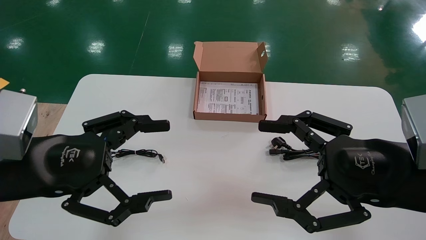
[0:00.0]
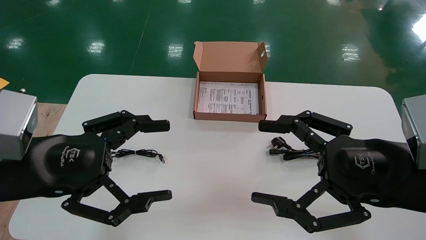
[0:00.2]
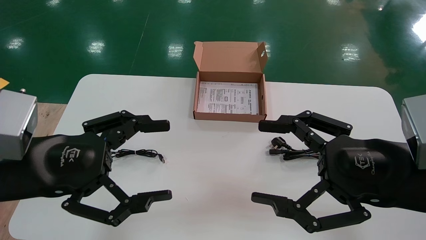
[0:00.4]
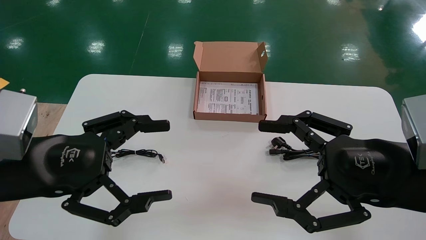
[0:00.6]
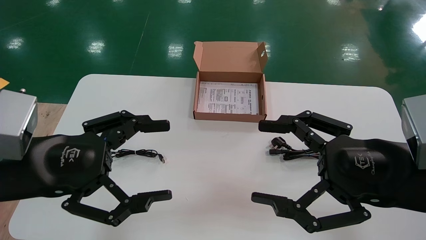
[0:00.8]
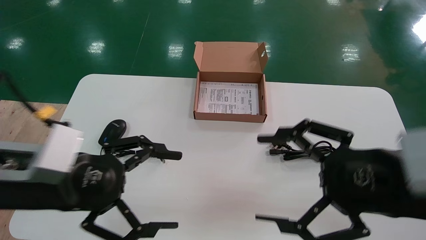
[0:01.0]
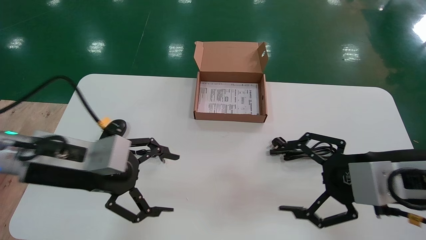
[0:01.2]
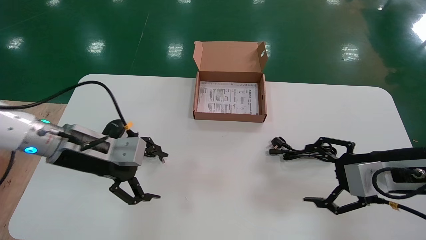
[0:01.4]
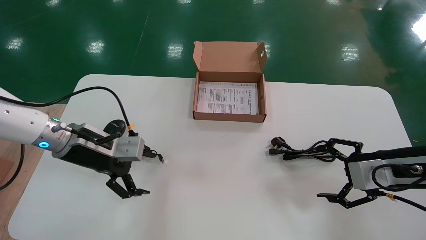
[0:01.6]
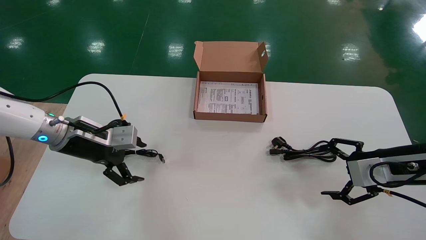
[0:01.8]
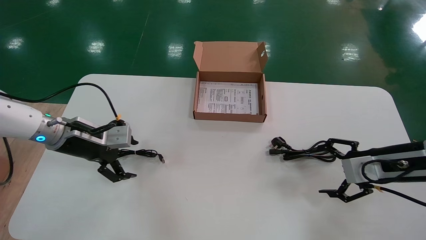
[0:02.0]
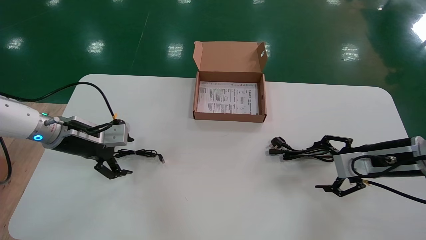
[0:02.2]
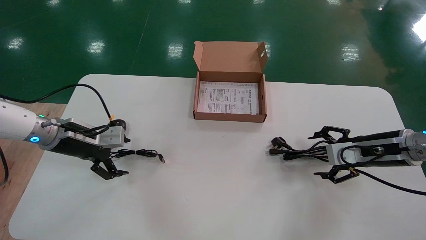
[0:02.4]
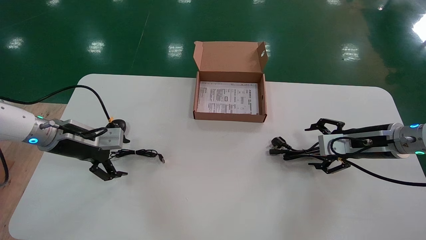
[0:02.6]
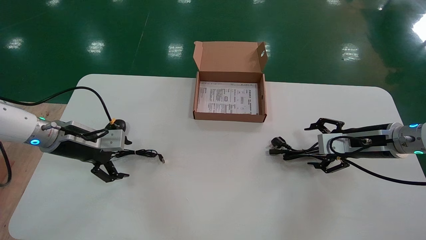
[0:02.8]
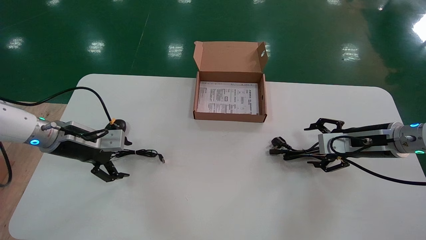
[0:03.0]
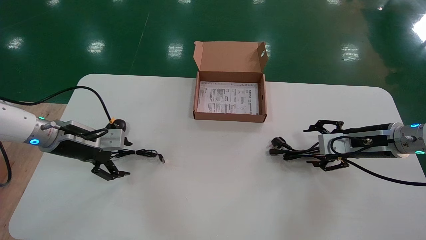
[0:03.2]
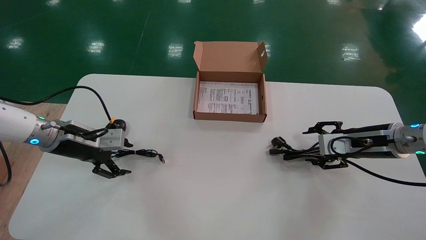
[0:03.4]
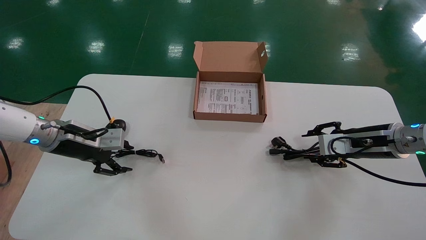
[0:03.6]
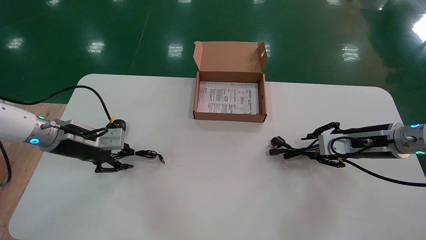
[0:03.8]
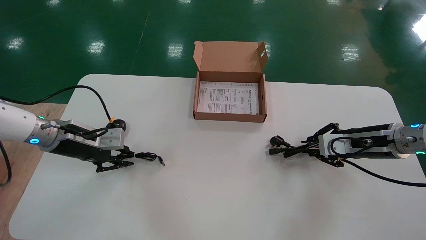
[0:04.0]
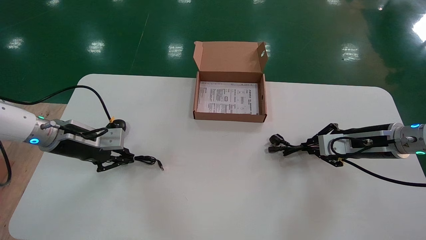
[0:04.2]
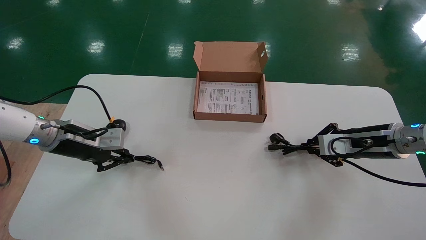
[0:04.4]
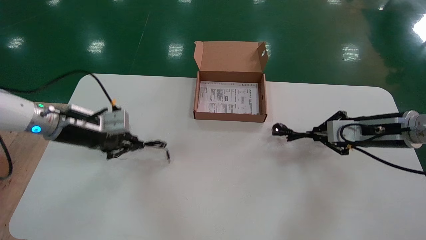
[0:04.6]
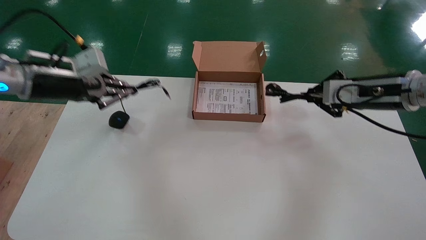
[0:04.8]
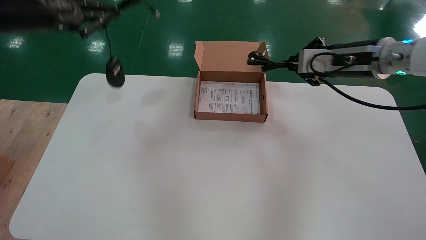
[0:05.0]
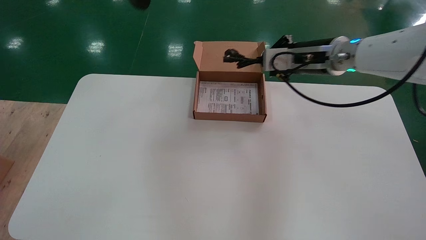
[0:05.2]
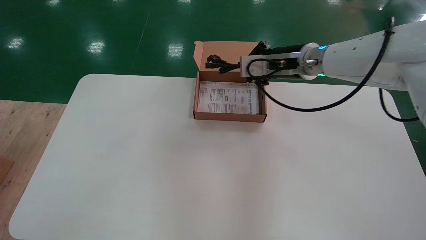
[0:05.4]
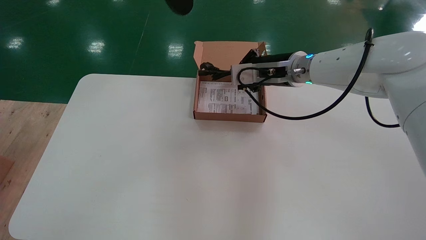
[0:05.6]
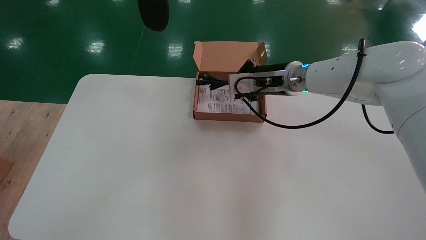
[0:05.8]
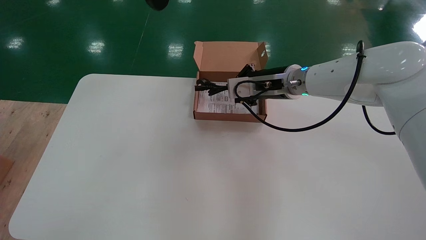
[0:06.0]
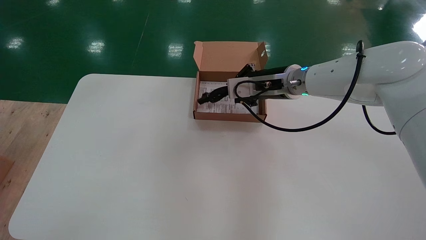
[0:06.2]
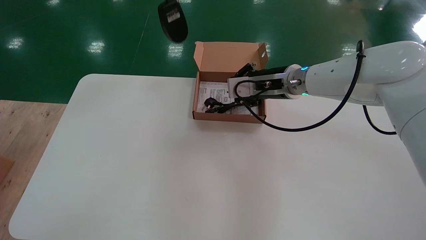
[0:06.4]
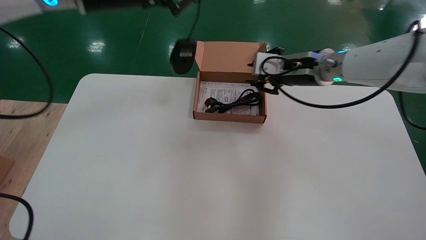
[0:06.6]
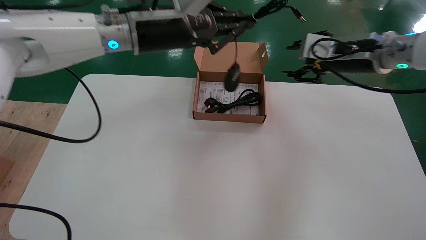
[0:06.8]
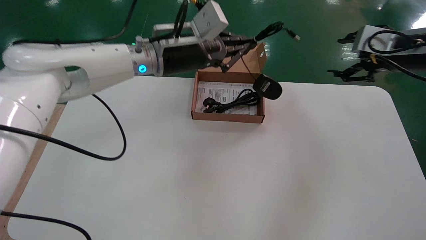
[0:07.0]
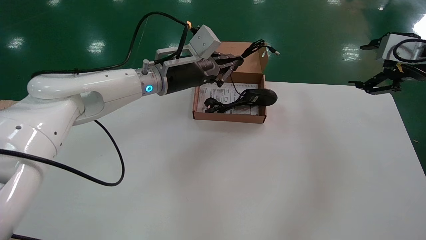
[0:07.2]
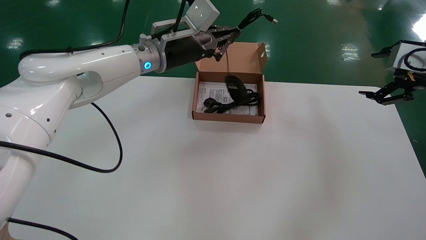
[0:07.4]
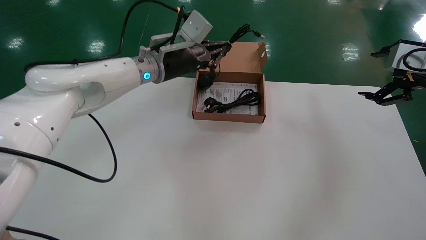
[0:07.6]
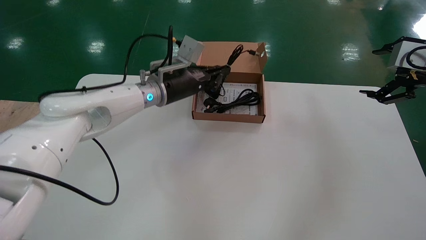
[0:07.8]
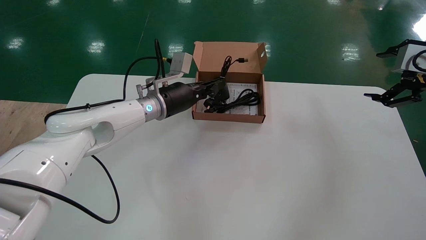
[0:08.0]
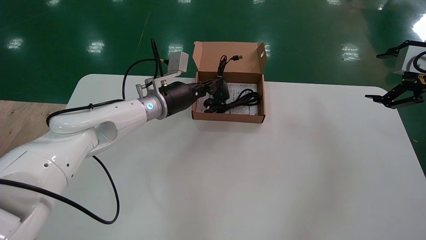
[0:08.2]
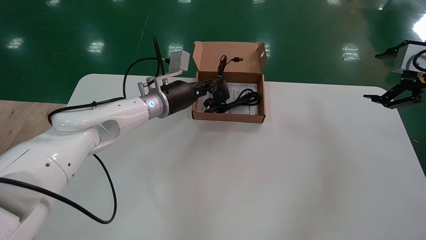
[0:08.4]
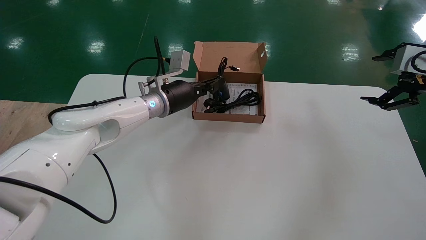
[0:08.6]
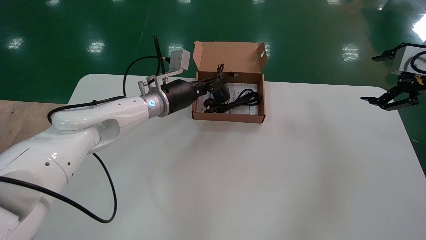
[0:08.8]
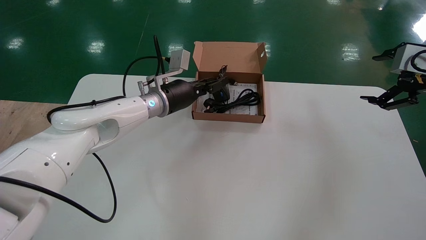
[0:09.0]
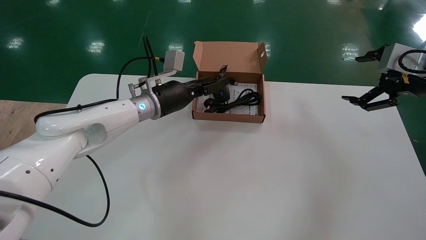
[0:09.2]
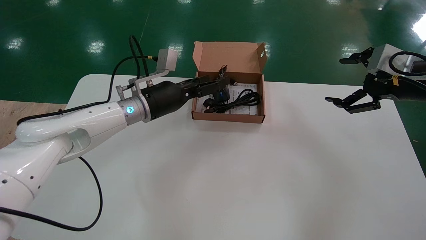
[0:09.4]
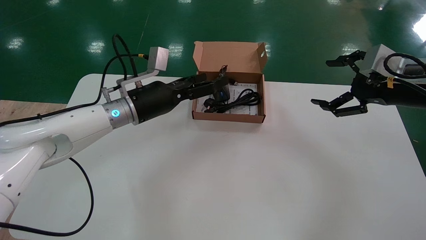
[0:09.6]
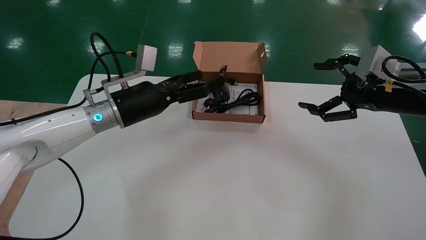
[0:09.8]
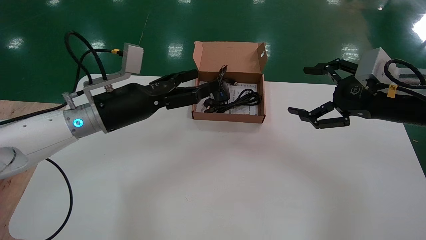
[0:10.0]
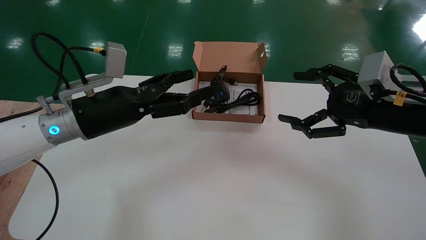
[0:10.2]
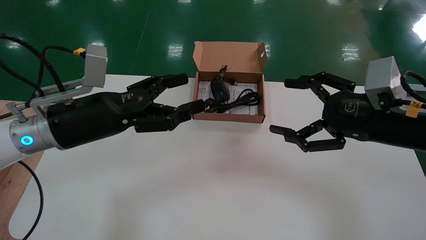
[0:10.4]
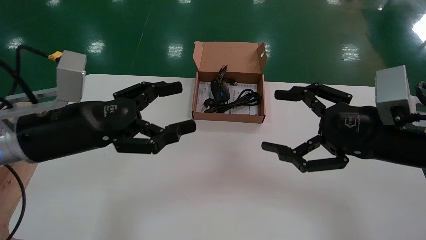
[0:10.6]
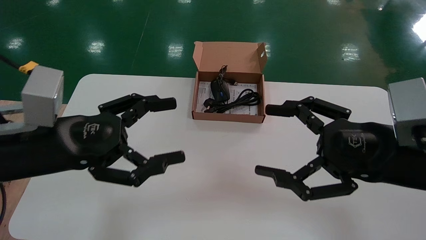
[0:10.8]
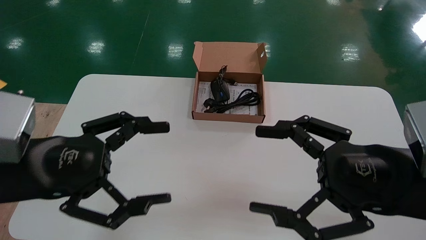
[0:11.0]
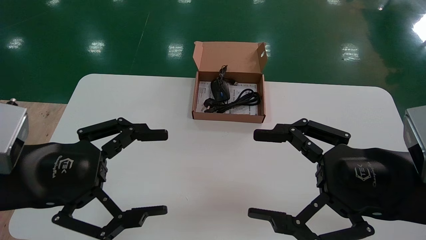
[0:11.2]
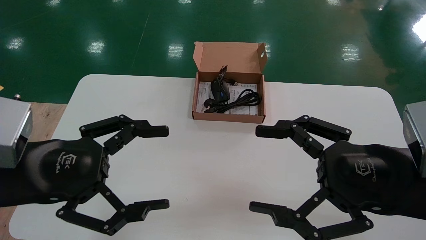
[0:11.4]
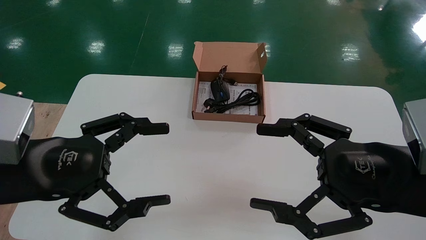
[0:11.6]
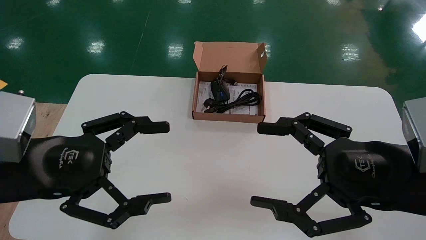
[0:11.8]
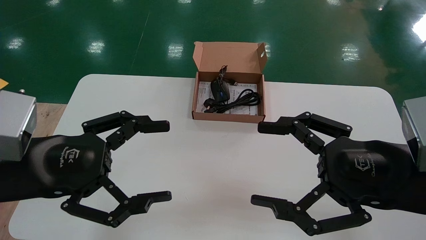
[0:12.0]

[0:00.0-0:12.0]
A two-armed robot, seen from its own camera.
Step, 0:01.4 to 0:04.4: Simultaneously pick up the mouse and power cord from the accessory packaging area.
Step, 0:04.6 to 0:09.4: Place the mouse and power cord into the box.
0:00.0 to 0:01.6: The left gripper heads forward, covering approximately 15 cm; the right gripper moves forward, to the right and downward, about 15 cm.
0:01.6 to 0:03.0: The right gripper shifts roughly 10 cm forward; the left gripper moves to the left, some 5 cm.
0:03.0 to 0:04.4: The left gripper closes; the right gripper closes its fingers.
0:04.4 to 0:06.0: The left gripper heads upward, covering approximately 35 cm; the right gripper travels to the left and upward by roughly 25 cm.
0:06.0 to 0:07.6: The right gripper moves to the right, roughly 30 cm, and opens up. The left gripper travels downward, forward and to the right by roughly 30 cm.
0:07.6 to 0:09.0: The left gripper heads downward, covering some 10 cm.
0:09.0 to 0:10.4: The left gripper travels backward and to the left by some 20 cm, and opens its fingers; the right gripper is displaced to the left, backward and downward by about 15 cm.
0:10.4 to 0:12.0: Both grippers travel together backward, some 10 cm.

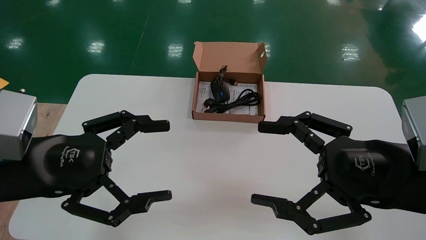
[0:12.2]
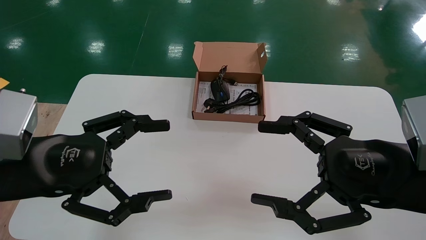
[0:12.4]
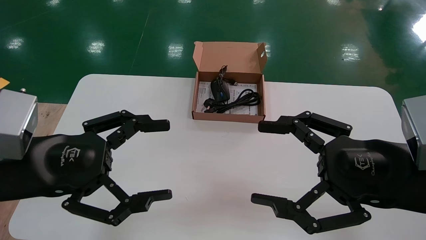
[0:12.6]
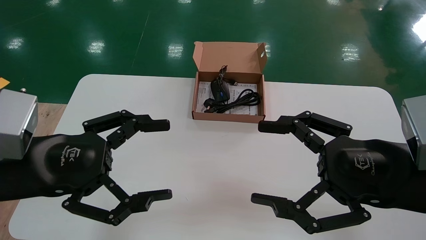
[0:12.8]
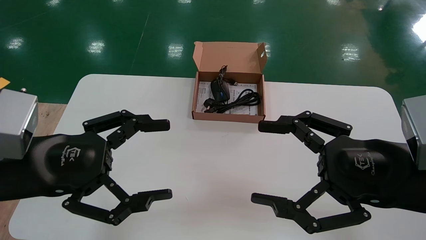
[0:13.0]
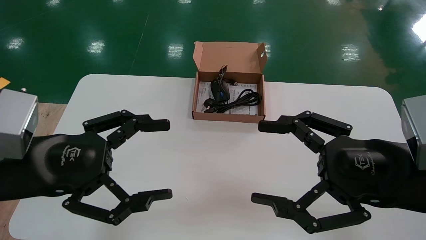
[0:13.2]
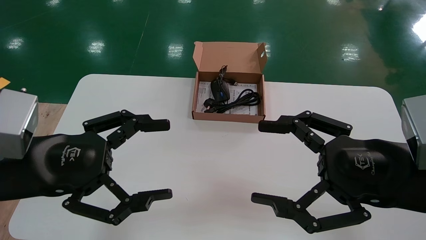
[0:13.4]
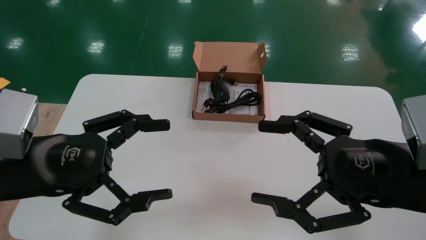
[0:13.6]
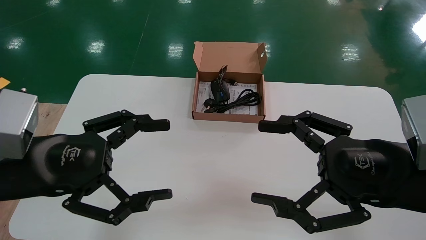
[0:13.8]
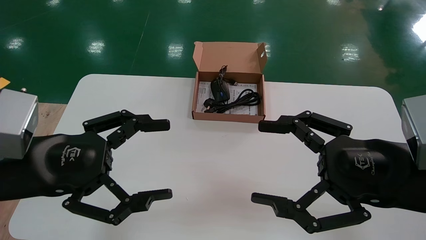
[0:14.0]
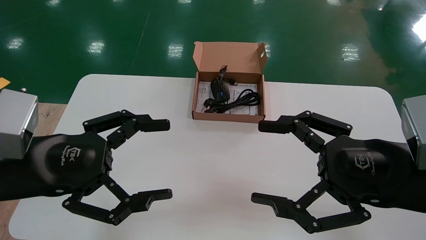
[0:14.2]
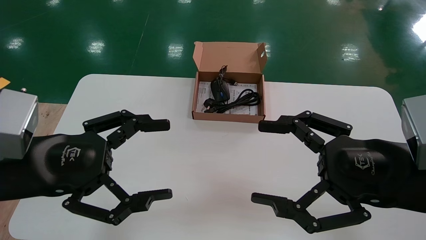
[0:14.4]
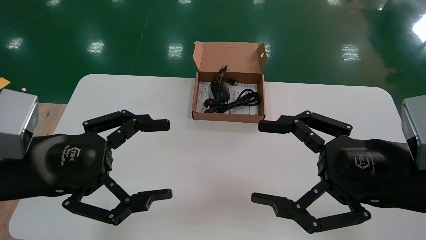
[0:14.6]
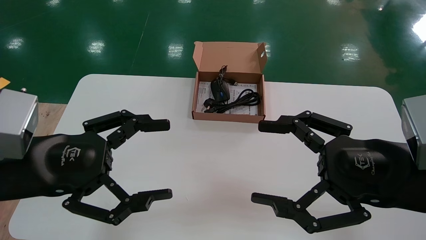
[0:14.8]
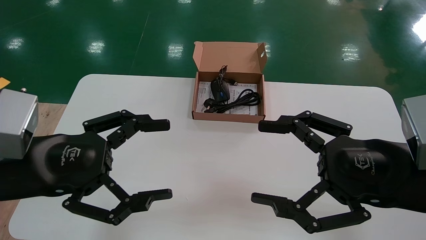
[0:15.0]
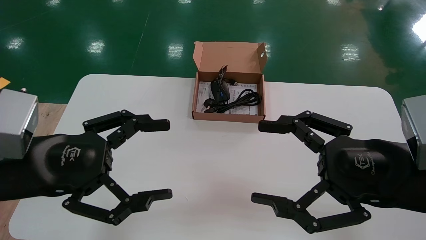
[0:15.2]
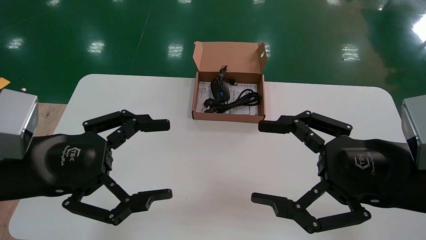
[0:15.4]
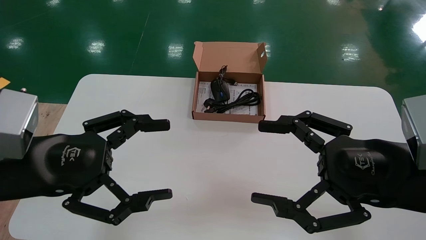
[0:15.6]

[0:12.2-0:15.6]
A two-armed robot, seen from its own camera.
0:12.2 to 0:15.6: The two grippers keep their place.

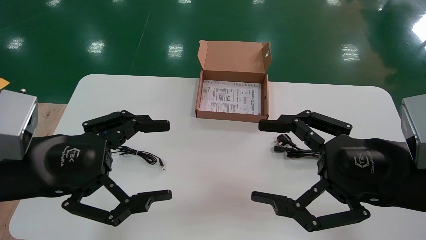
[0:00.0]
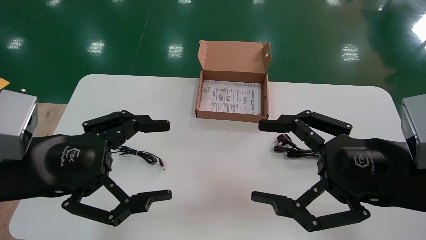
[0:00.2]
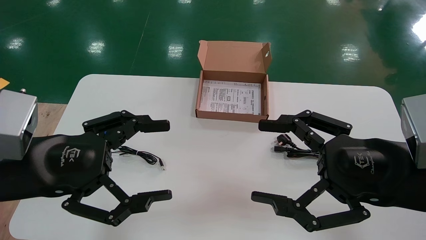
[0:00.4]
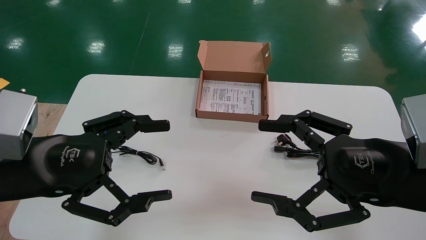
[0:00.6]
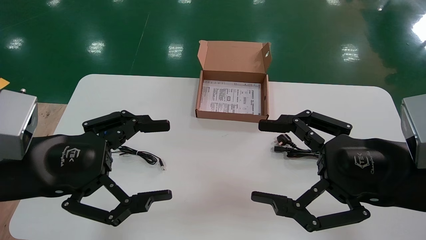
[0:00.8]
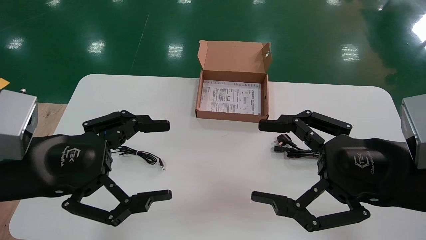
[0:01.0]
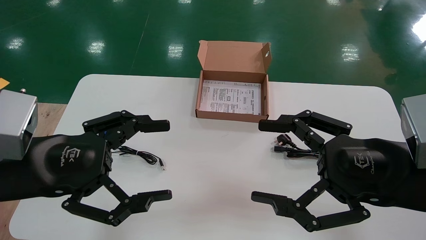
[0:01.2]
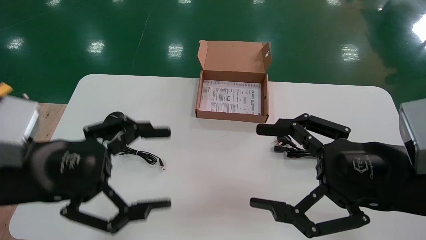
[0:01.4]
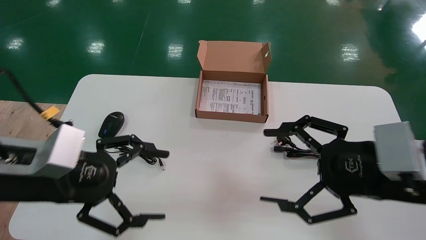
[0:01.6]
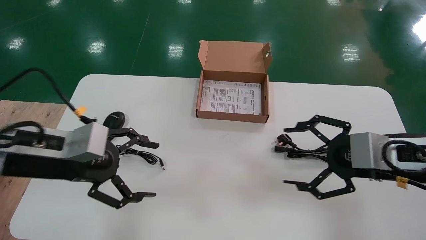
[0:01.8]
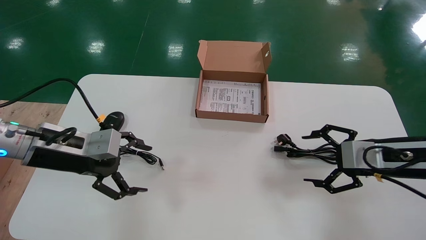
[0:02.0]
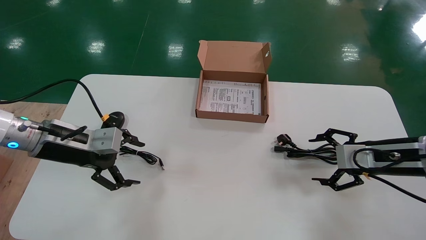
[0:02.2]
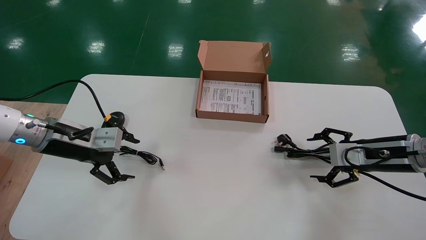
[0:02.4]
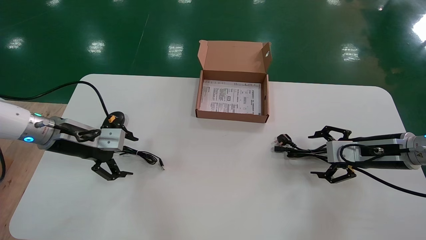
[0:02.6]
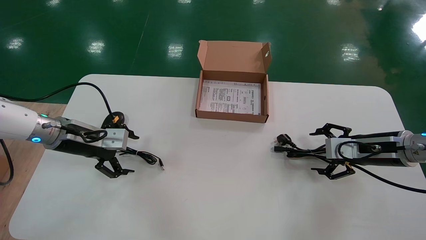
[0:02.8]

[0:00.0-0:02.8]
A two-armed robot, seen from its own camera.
0:00.0 to 0:01.4: There are only small adjustments of the grippers.
0:01.4 to 0:02.8: The right gripper goes about 20 cm forward and to the right. Meanwhile the left gripper goes about 20 cm forward.
